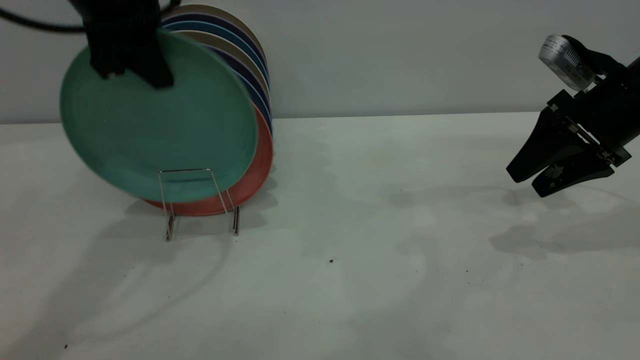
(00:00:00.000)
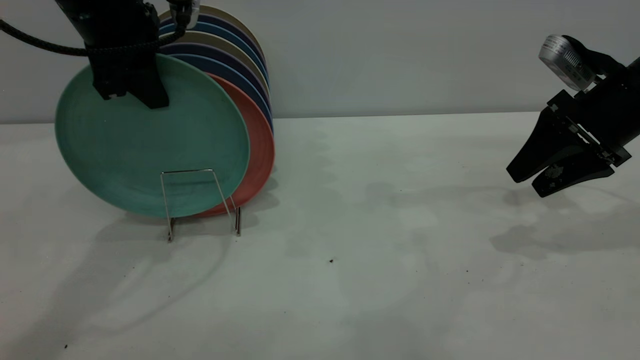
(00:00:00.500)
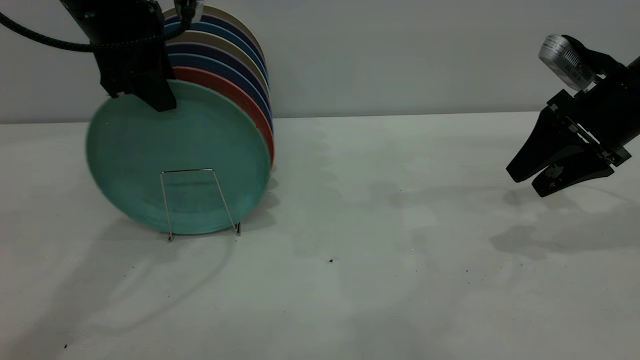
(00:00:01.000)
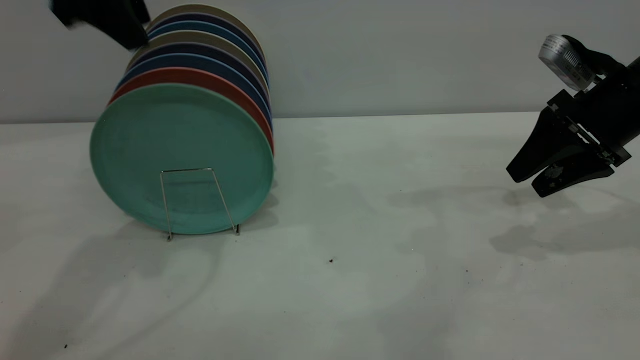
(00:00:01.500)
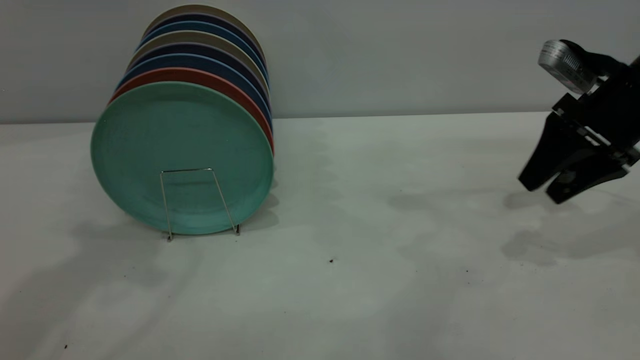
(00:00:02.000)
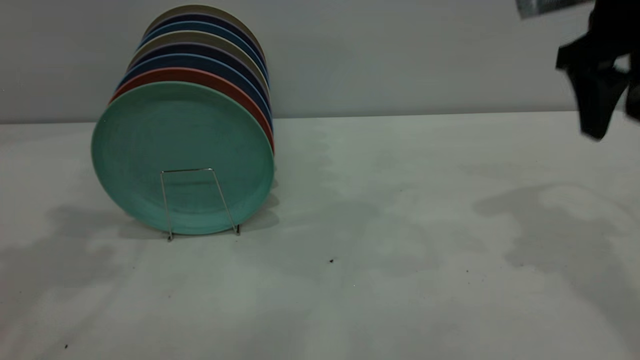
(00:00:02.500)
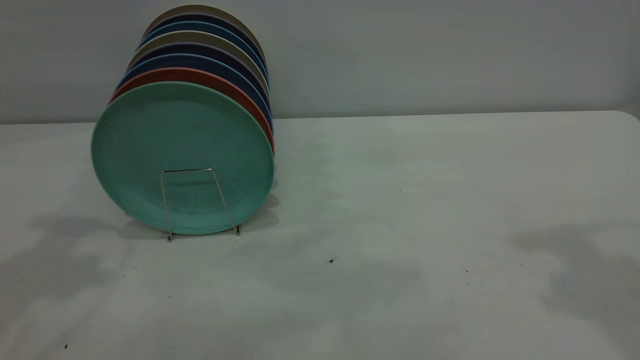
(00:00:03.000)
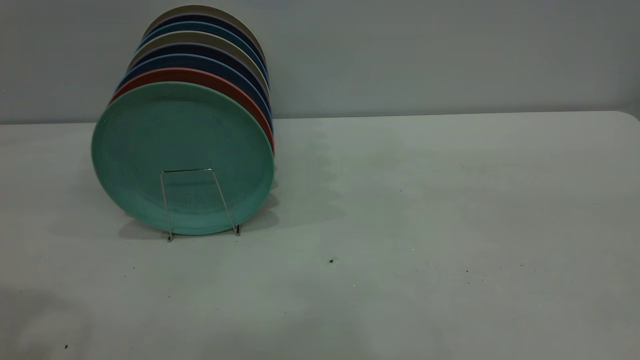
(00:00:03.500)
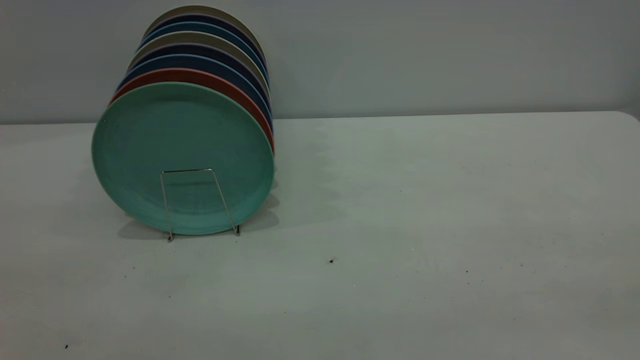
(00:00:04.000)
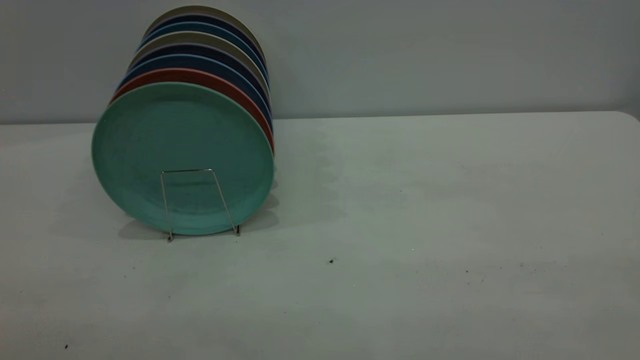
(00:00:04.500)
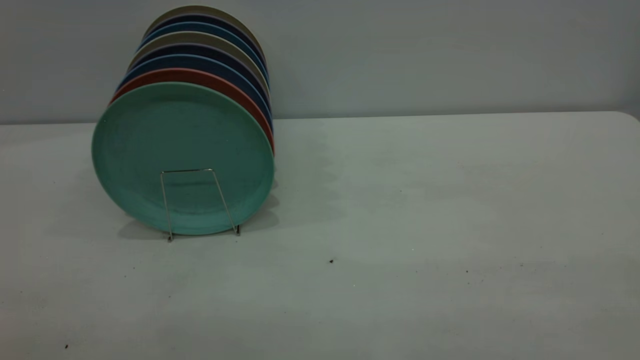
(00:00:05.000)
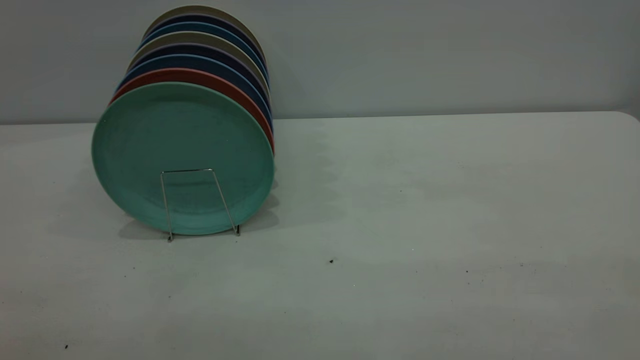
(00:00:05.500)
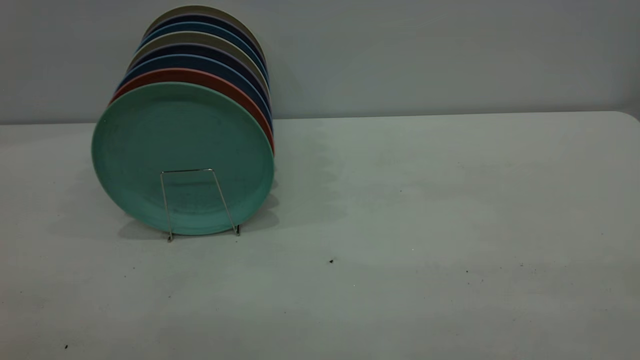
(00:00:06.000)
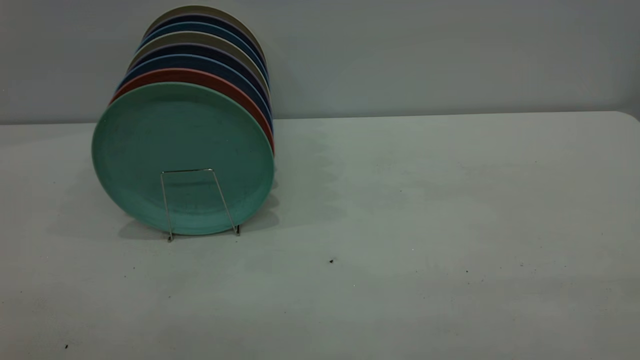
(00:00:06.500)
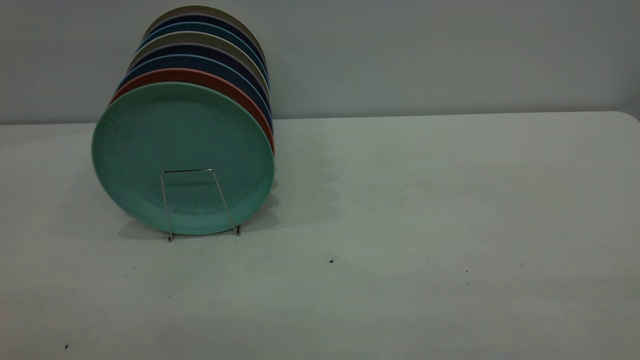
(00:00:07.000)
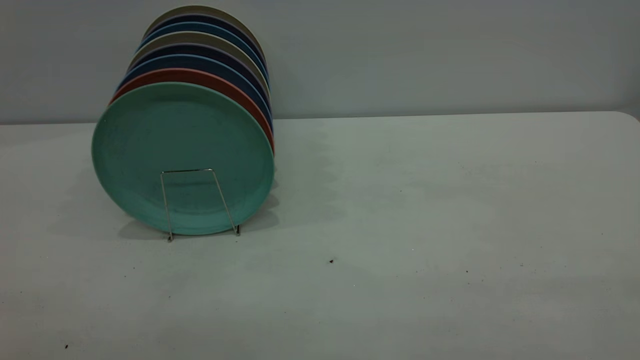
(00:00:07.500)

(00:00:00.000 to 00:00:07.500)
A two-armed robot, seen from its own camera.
Task of the whole recording: the right gripper grasp the green plate, the right gripper pass the green plate to the left gripper, and the left gripper place the green plate on the plate rack.
00:00:00.000 - 00:00:02.000: The left gripper heads upward and backward, covering roughly 15 cm, and opens.
00:00:02.000 - 00:00:04.000: The right gripper shifts roughly 40 cm backward and upward.

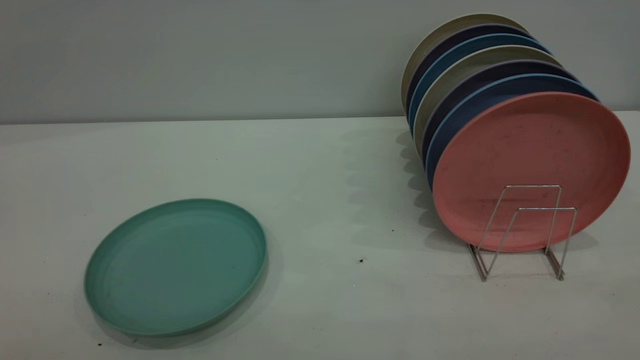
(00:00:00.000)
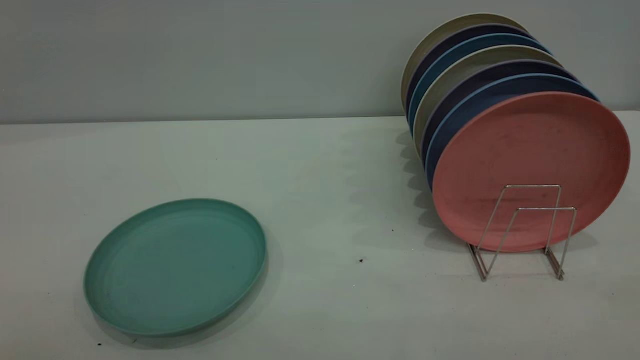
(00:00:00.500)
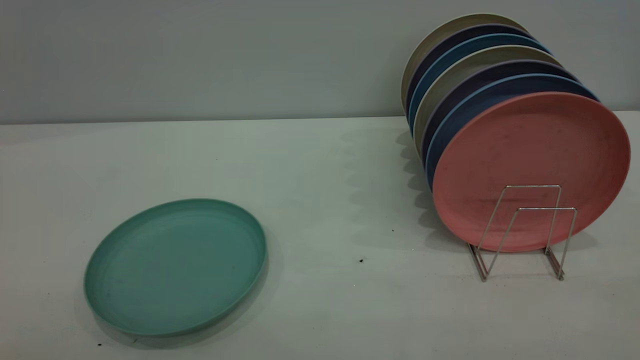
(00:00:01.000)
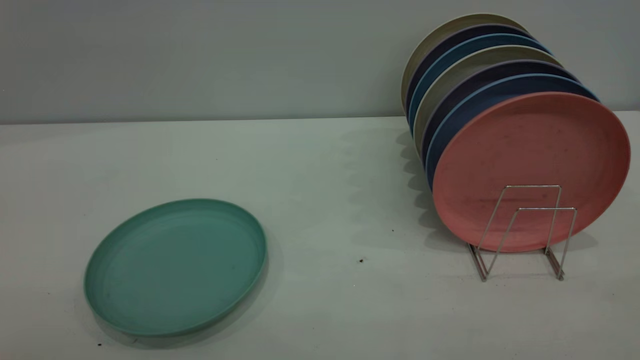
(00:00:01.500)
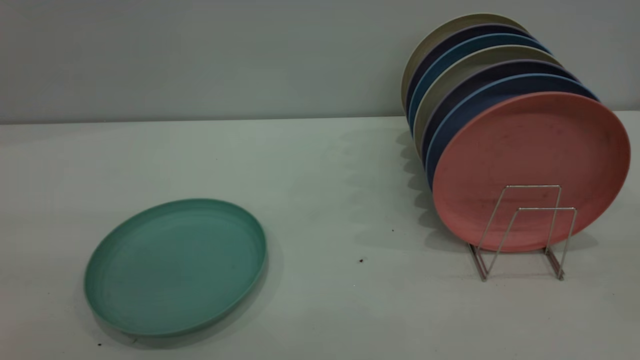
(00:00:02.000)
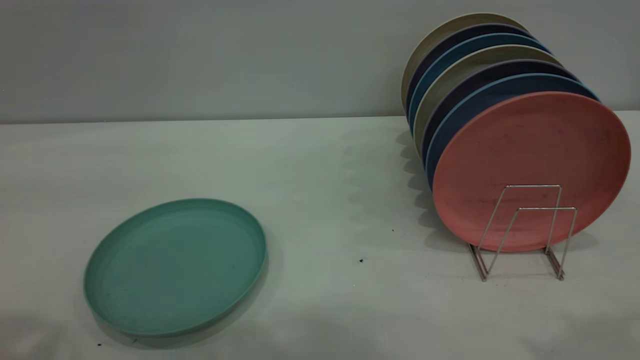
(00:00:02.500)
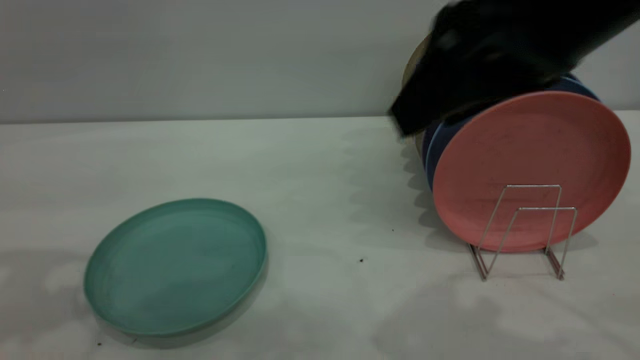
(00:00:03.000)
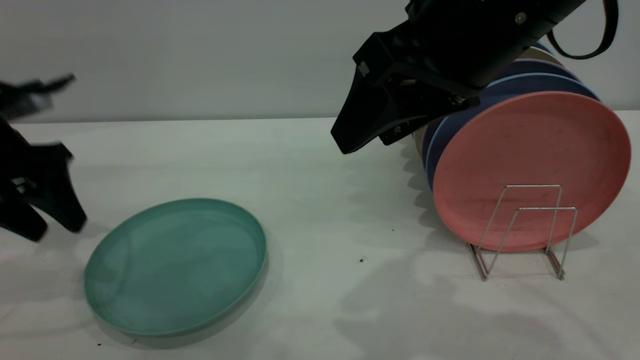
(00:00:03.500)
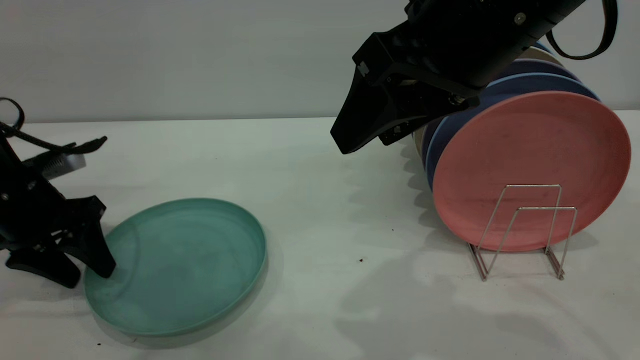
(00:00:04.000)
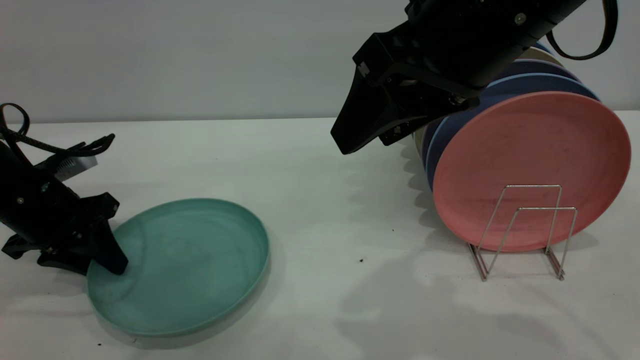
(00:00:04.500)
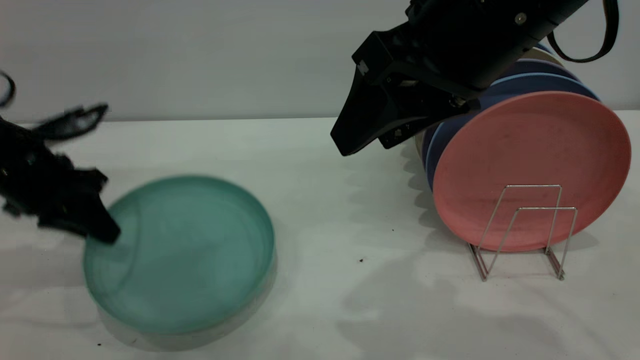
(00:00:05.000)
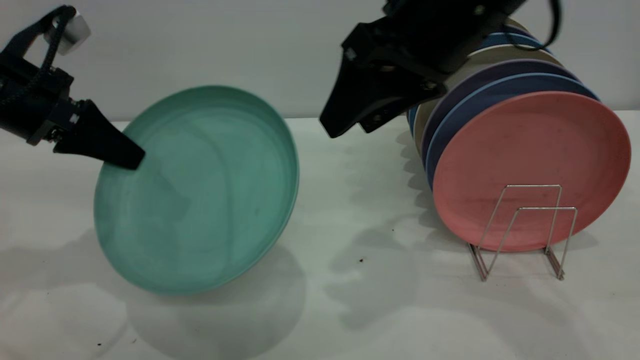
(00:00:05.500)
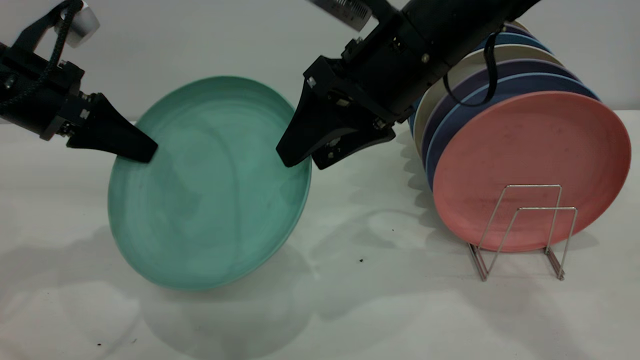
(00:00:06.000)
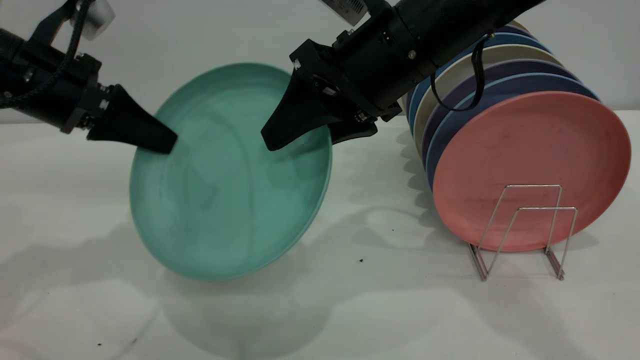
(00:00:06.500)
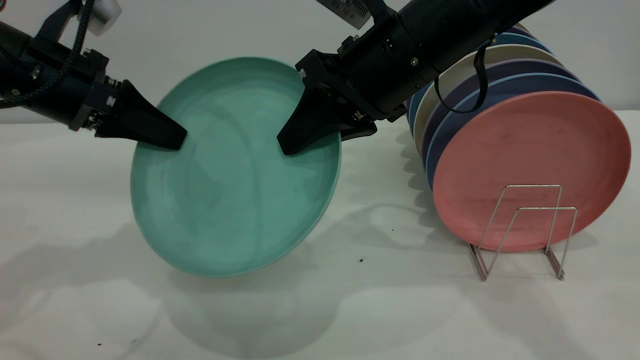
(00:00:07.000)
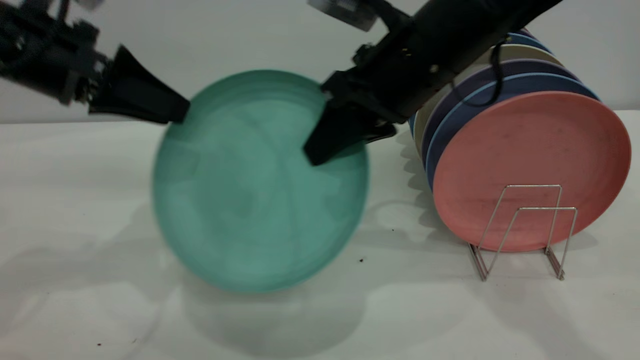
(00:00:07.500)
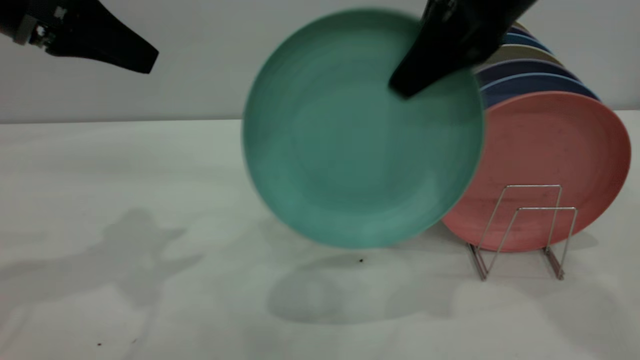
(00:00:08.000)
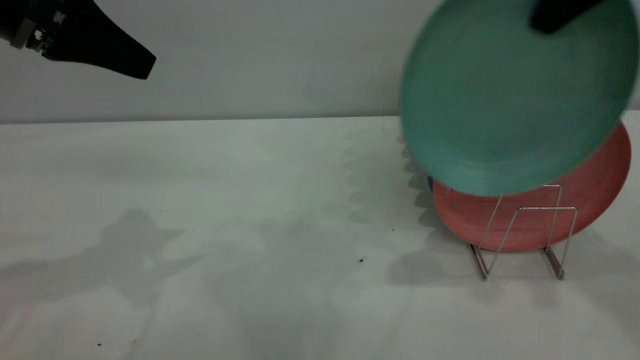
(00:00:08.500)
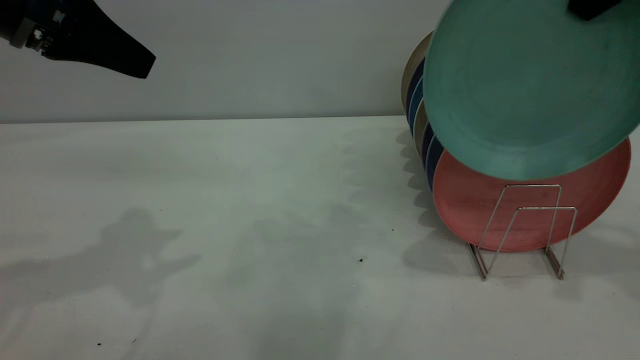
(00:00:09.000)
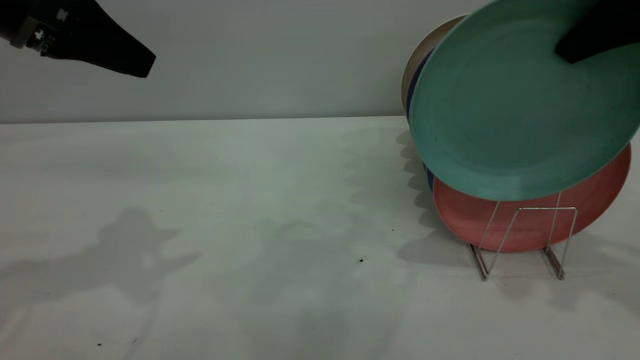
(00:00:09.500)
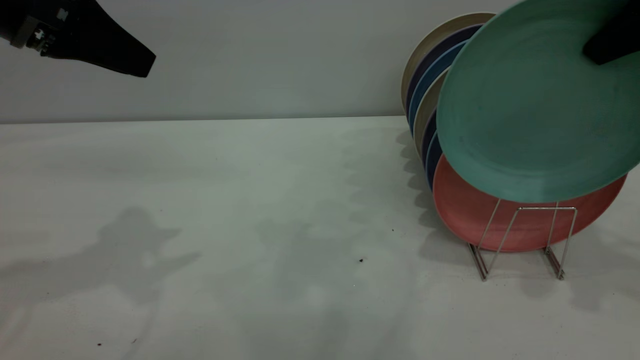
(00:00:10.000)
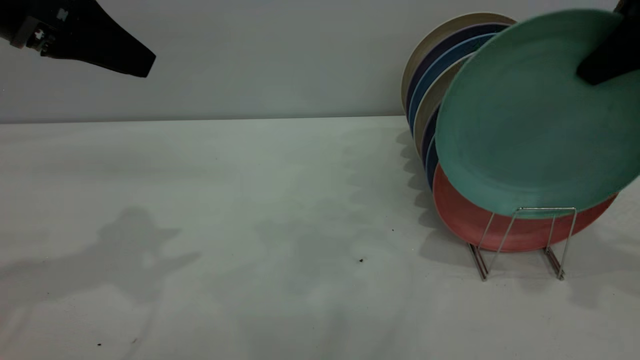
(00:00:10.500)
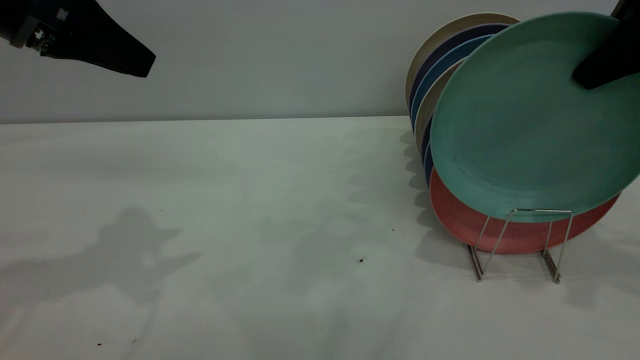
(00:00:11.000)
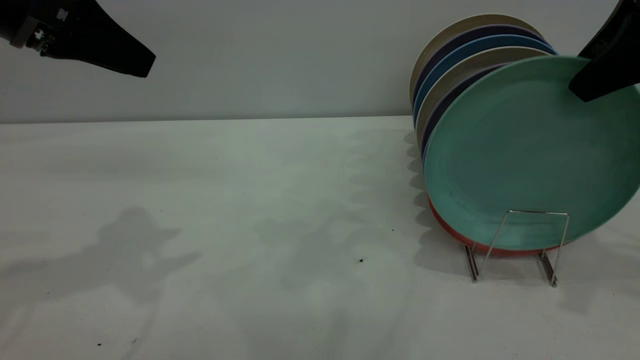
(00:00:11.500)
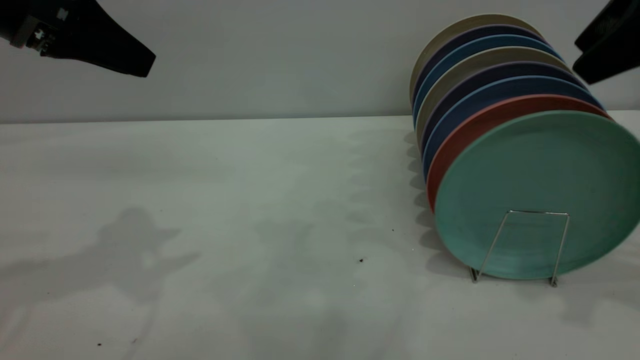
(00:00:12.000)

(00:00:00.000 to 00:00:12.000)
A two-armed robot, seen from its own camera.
Task of the whole recording: the left gripper grasp the green plate, the left gripper pass the green plate to the right gripper, and the right gripper place the green plate on the plate rack.
Step, 00:00:00.000 - 00:00:05.000: Pick up the plate with the left gripper.
Step, 00:00:05.500 - 00:00:07.500: Pass the plate from the left gripper to the right gripper.
Step, 00:00:08.000 - 00:00:12.000: Place the plate on the shelf.
00:00:02.000 - 00:00:04.000: The right gripper shifts roughly 30 cm forward, to the left and downward. Meanwhile the left gripper shifts some 40 cm downward and forward.
00:00:04.000 - 00:00:06.000: The left gripper shifts roughly 10 cm upward, and closes its fingers. Meanwhile the right gripper is displaced forward and downward by roughly 10 cm.
00:00:06.000 - 00:00:08.000: The right gripper moves to the right and upward, approximately 10 cm, and closes. Meanwhile the left gripper goes some 10 cm upward, and opens its fingers.
00:00:08.000 - 00:00:10.000: The right gripper shifts approximately 15 cm to the right.
00:00:10.000 - 00:00:12.000: The right gripper opens its fingers.
